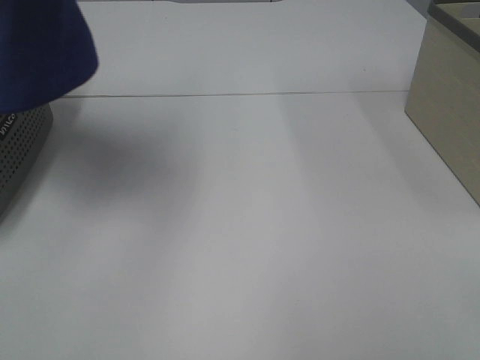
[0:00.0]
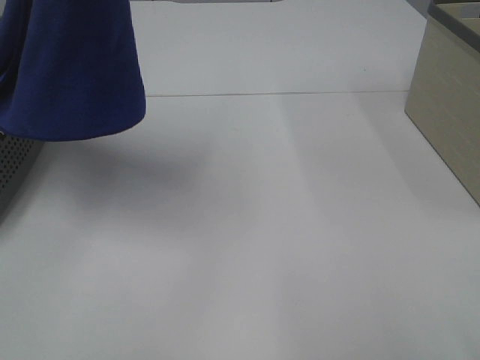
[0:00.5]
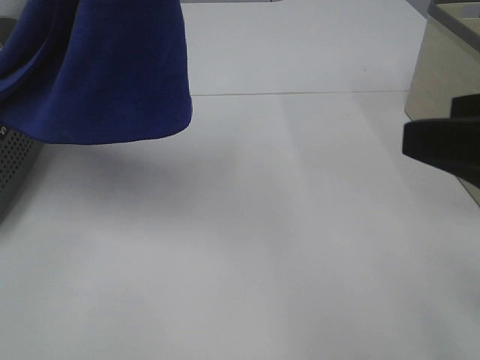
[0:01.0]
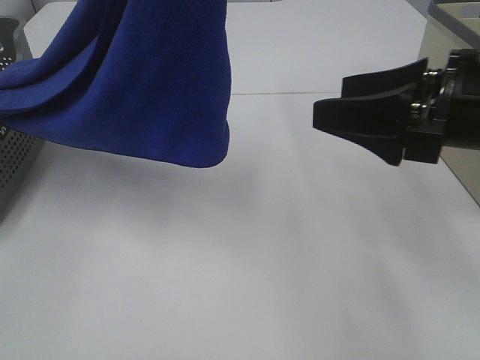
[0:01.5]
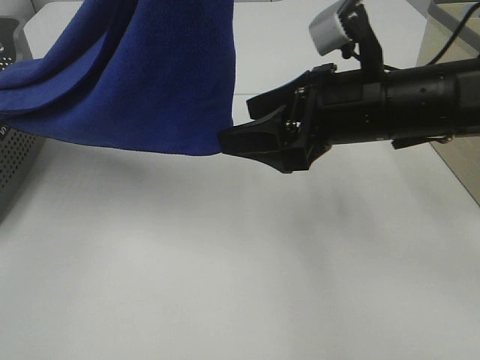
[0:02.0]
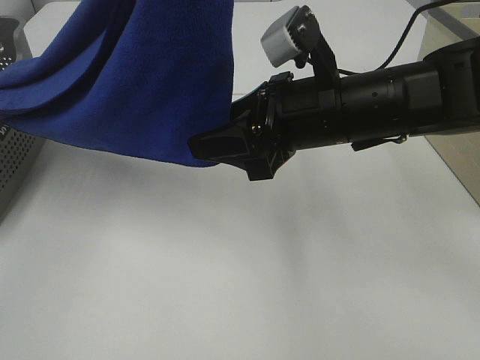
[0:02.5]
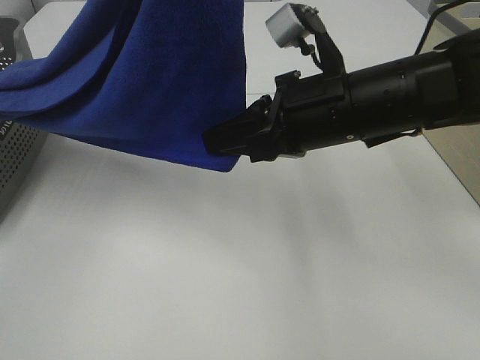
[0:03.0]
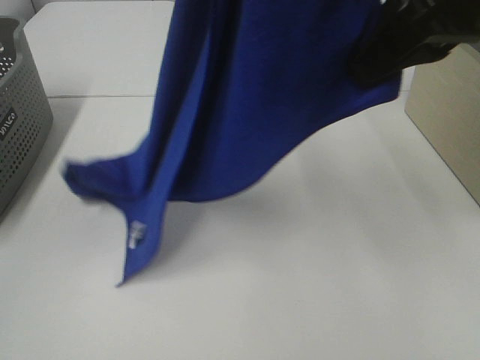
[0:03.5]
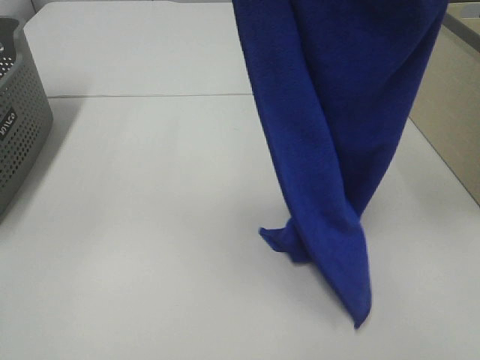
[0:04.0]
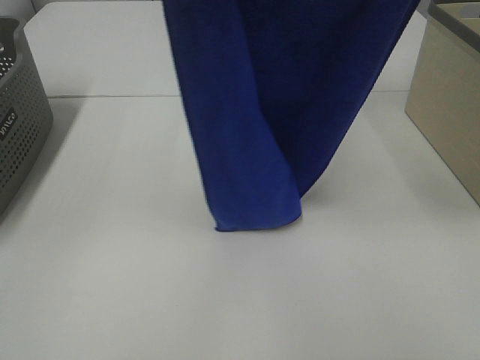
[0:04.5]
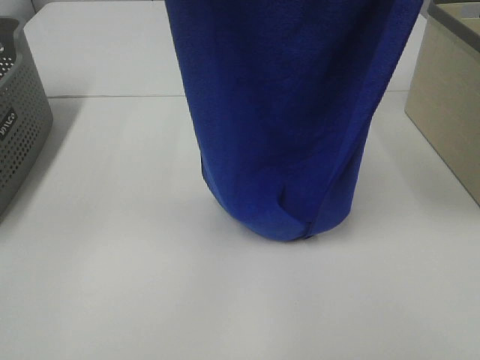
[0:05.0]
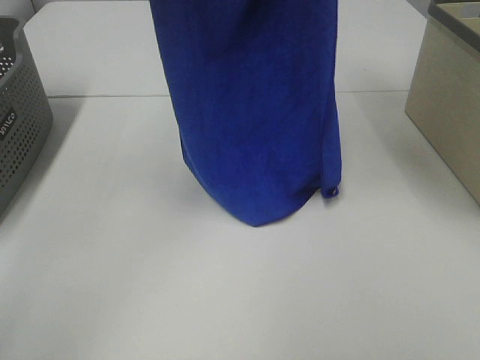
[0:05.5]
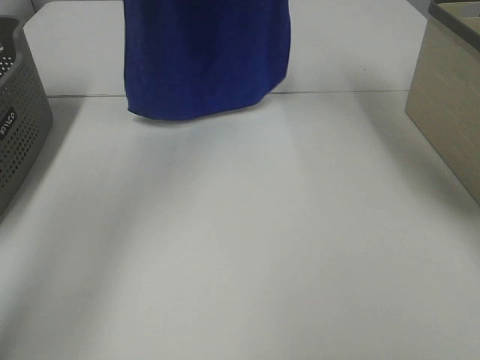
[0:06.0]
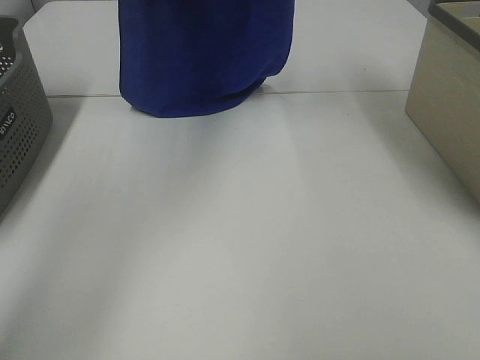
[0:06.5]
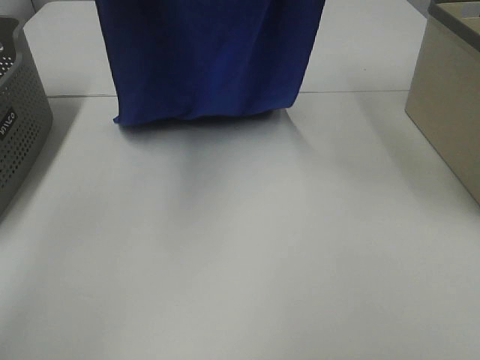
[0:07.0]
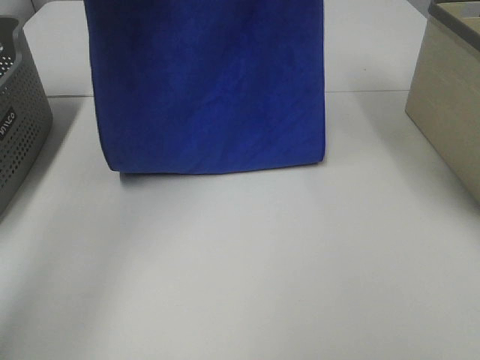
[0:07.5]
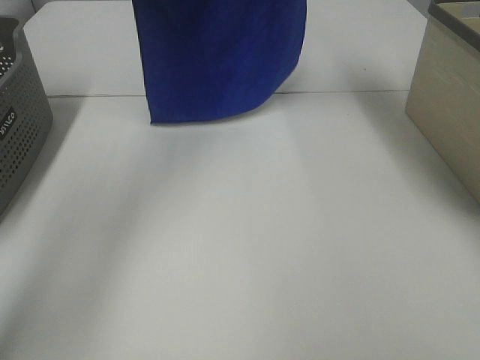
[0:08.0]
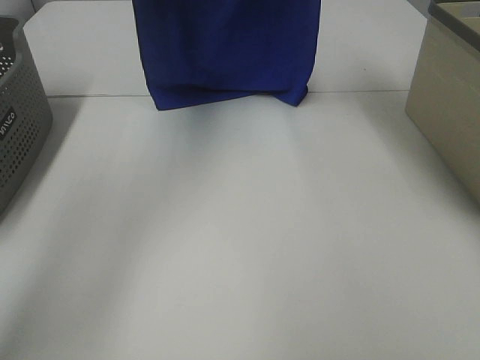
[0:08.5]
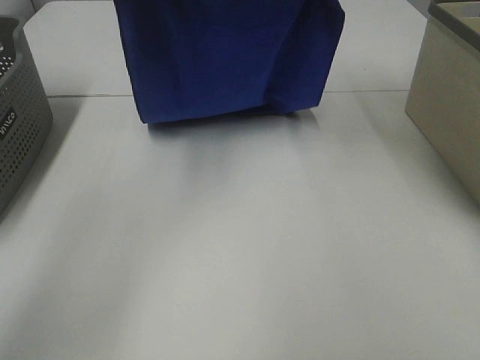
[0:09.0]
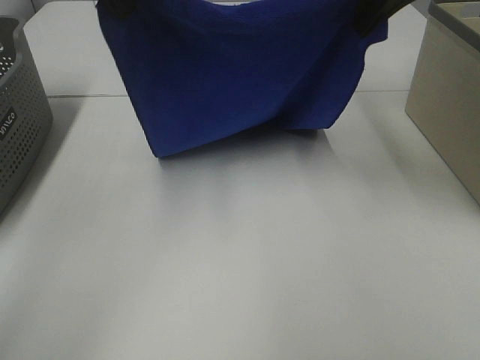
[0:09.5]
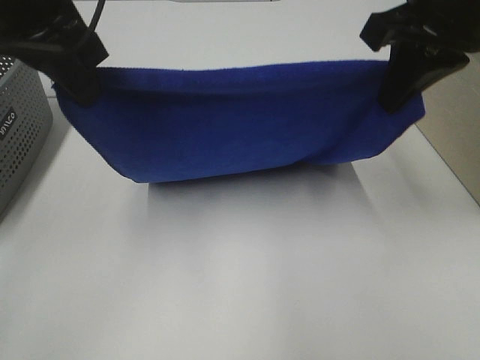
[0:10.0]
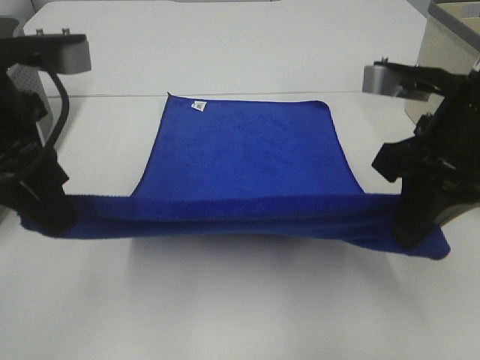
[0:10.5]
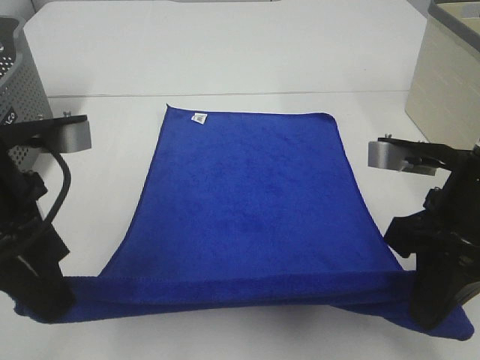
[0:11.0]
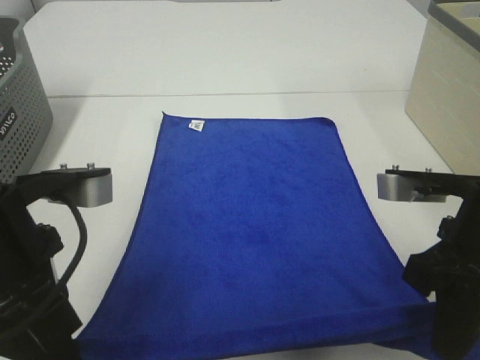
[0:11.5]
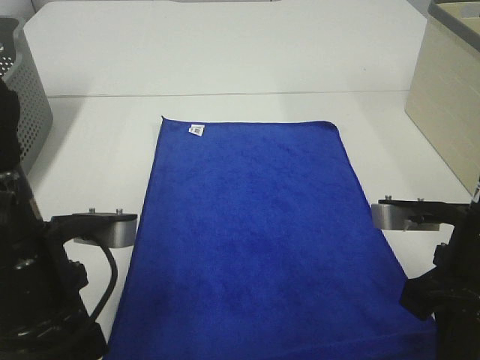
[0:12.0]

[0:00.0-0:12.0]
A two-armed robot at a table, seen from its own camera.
Task of the whole recording: Remove the towel and place it.
Step, 0:00.0 to 0:02.5: Right hand: grab a corner of the blue towel and straighten it.
Step, 0:03.0 to 0:09.0: Left hand: spread the blue towel flat on the table.
Step, 0:03.0 to 0:09.0: Right hand: spread the blue towel flat on the table.
0:00.0 to 0:02.0: The left gripper travels to the right by roughly 10 cm, while the right gripper is displaced forward and to the left by about 30 cm.
0:02.0 to 0:04.0: The right gripper shifts about 25 cm upward, and closes its fingers.
0:04.0 to 0:06.0: The right gripper moves forward and to the left, about 25 cm. The left gripper heads forward, covering roughly 20 cm.
0:06.0 to 0:08.0: The left gripper reaches about 10 cm backward, then returns. Meanwhile the right gripper moves some 10 cm backward and comes back.
0:08.0 to 0:10.0: The two grippers go roughly 25 cm backward and downward.
0:10.0 to 0:12.0: Both grippers travel together downward and backward, approximately 20 cm.

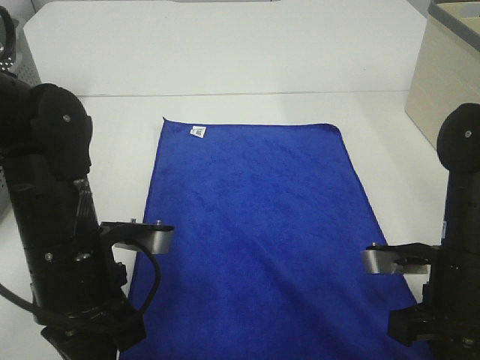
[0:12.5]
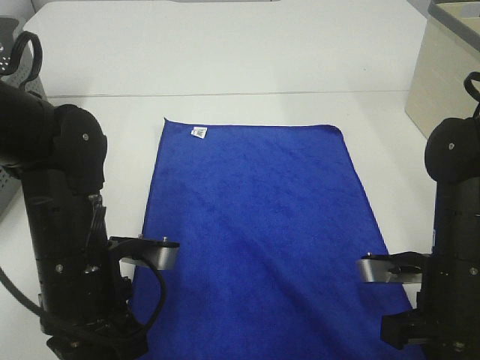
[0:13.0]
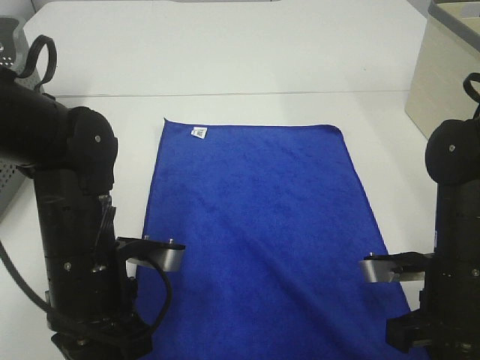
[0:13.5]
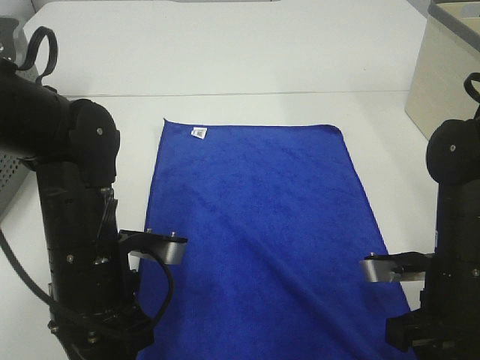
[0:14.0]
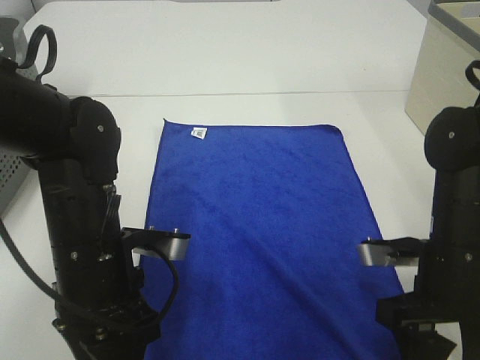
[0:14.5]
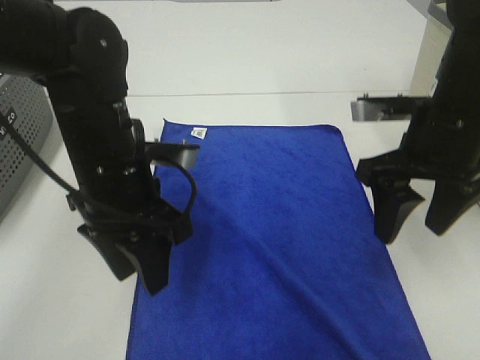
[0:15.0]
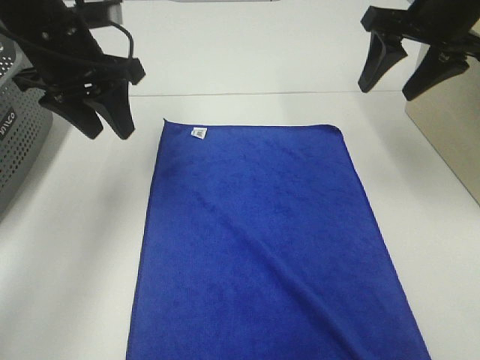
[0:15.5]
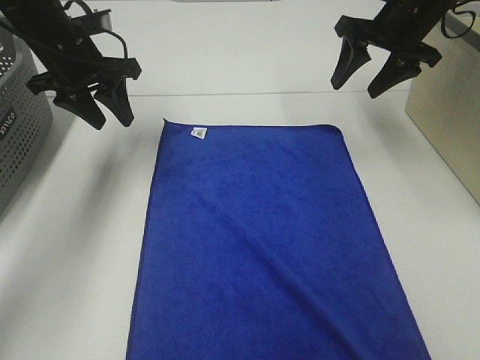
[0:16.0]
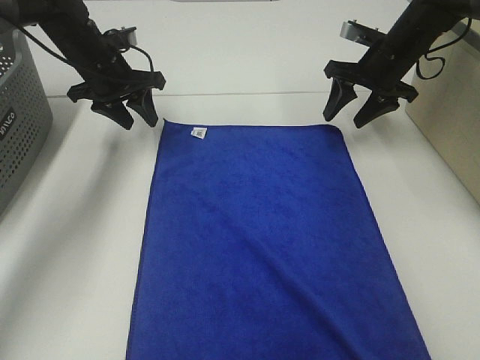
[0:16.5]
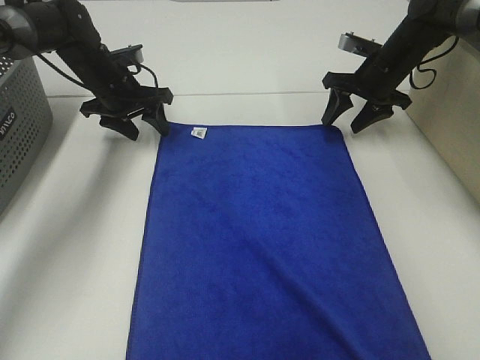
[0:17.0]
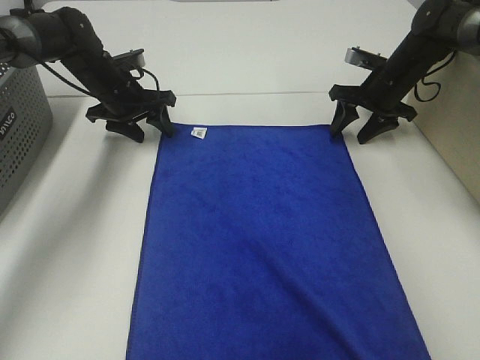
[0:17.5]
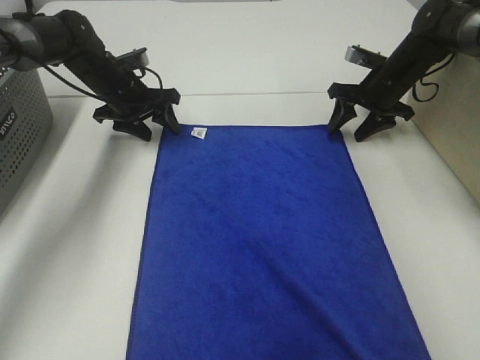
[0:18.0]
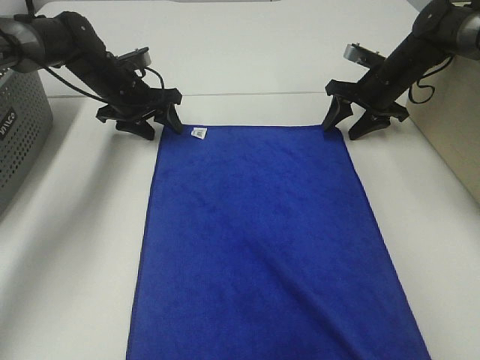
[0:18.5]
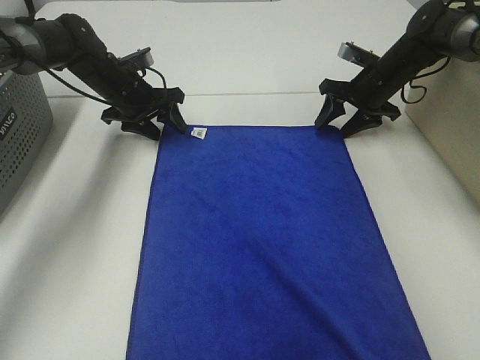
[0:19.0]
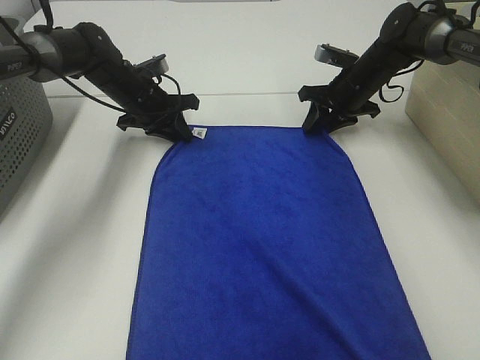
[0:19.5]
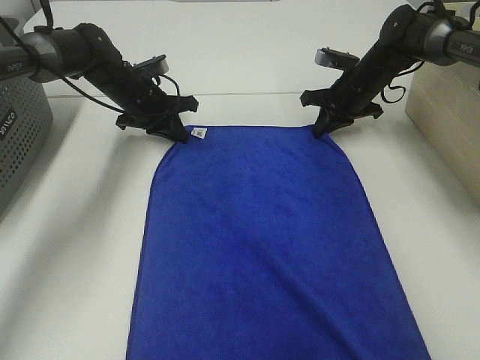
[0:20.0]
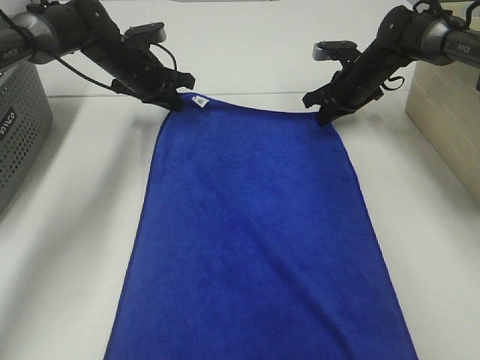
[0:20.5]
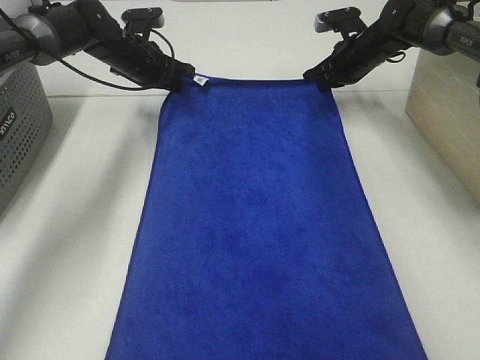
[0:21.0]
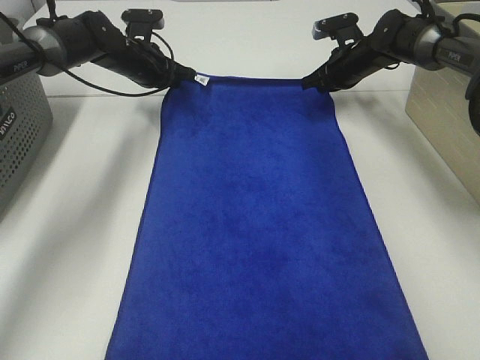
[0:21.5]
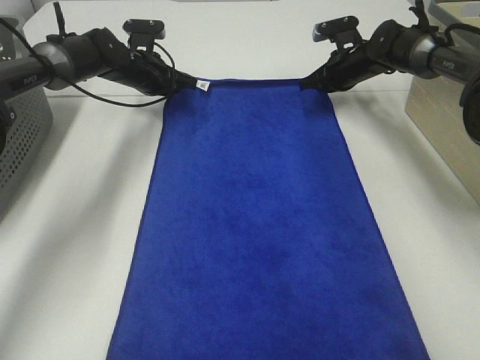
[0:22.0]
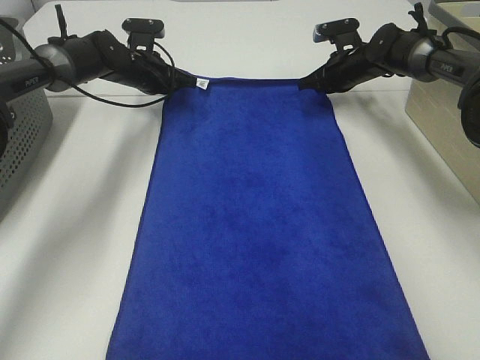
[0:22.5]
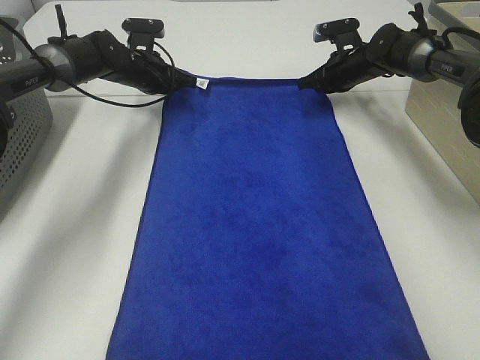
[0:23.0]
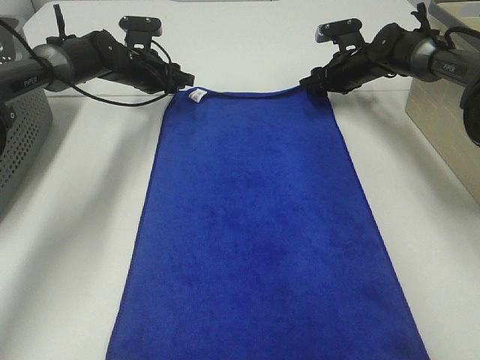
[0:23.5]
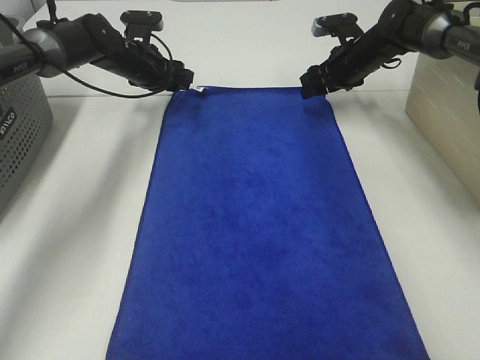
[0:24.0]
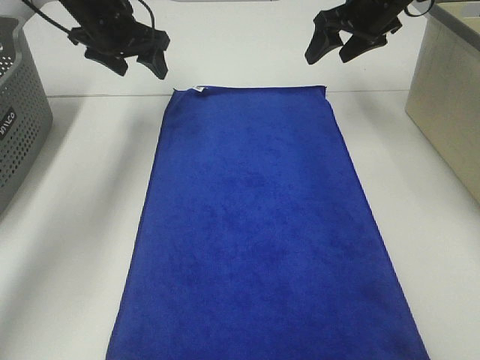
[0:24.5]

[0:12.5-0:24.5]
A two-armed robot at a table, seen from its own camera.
Task of the whole recording: Remove the towel and place it.
Step, 0:12.5 to 0:17.0: Left hand:adjust the blue towel.
Step, 0:12.5 to 0:17.0: Right hand:adjust the blue towel.
0:12.5 to 0:14.5: The right gripper opens. The left gripper opens up.
0:14.5 to 0:16.5: Both grippers move forward, roughly 30 cm.
0:16.5 to 0:18.5: Both grippers move downward, about 5 cm.
0:18.5 to 0:20.5: The left gripper closes; the right gripper closes its fingers.
0:22.5 to 0:24.5: Both grippers travel together upward and backward, roughly 15 cm. The left gripper opens its fingers. Meanwhile the right gripper opens its fingers.

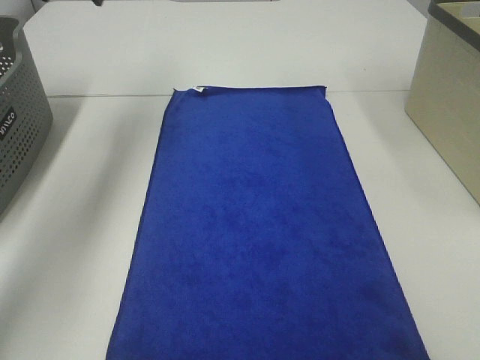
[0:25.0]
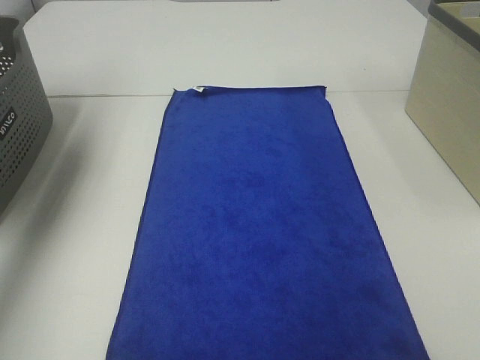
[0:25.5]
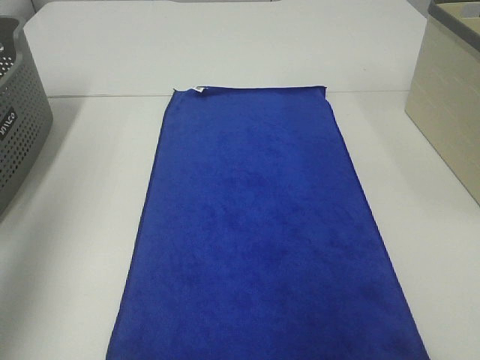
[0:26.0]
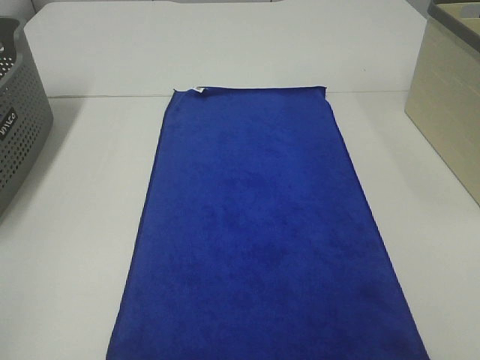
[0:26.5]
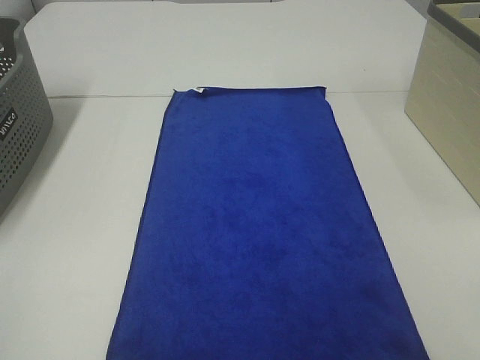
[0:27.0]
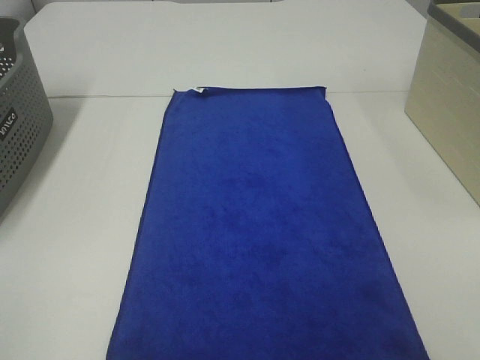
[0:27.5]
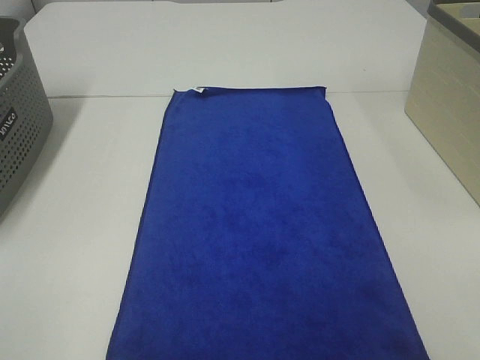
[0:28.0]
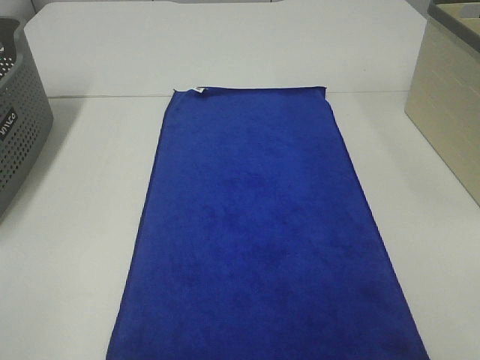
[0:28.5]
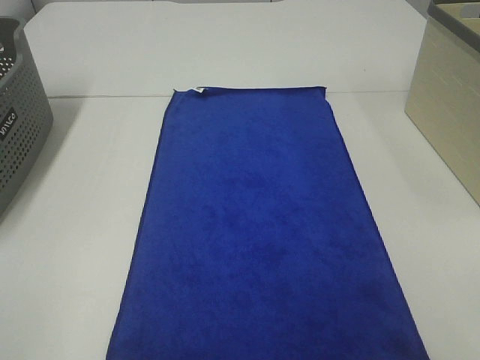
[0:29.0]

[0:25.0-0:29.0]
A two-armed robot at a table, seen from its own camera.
Task of the whole recording: Remove the towel and place it.
0:25.0 to 0:27.0: The left gripper moves backward, approximately 50 cm.
